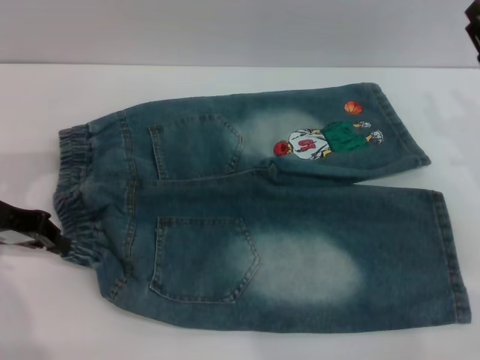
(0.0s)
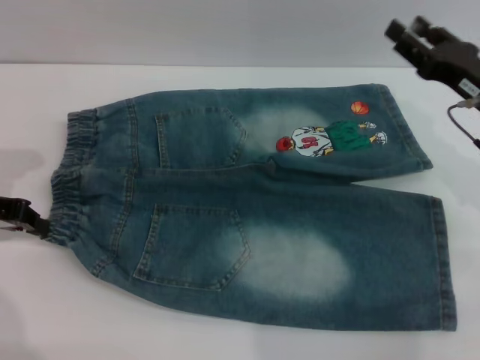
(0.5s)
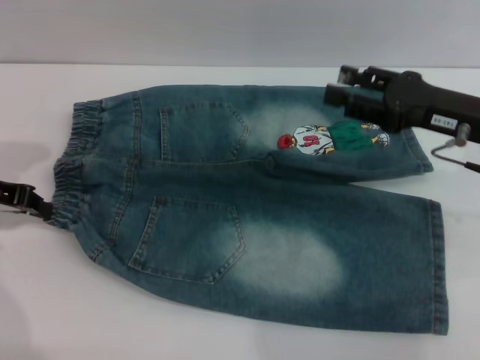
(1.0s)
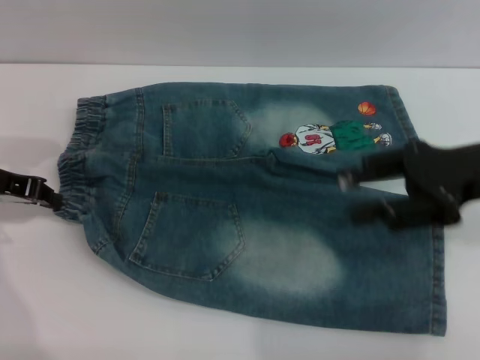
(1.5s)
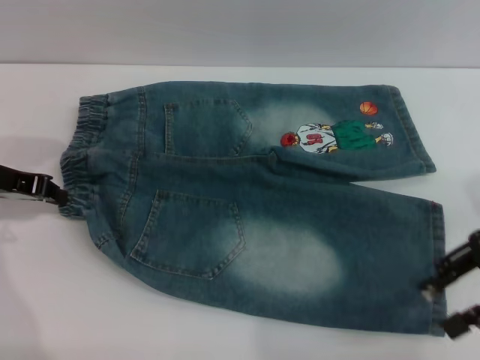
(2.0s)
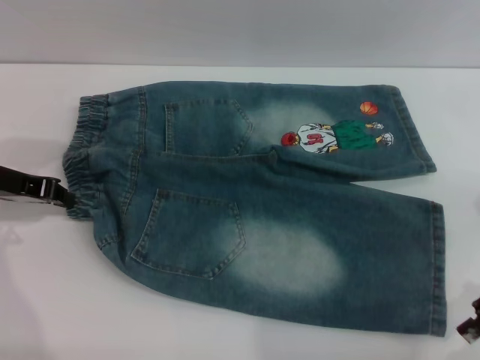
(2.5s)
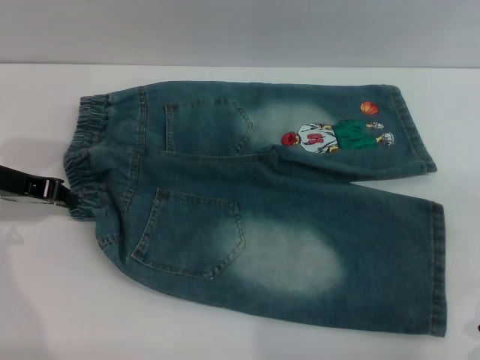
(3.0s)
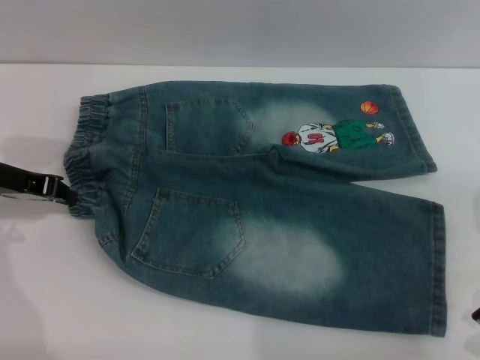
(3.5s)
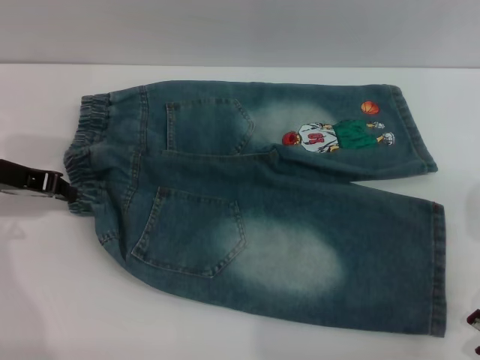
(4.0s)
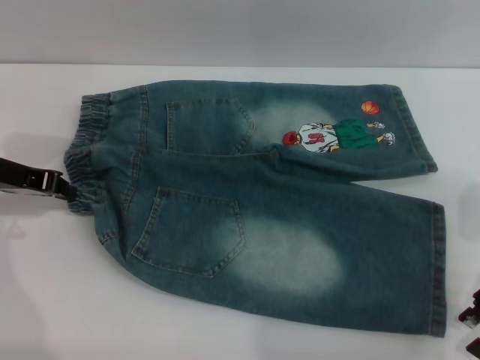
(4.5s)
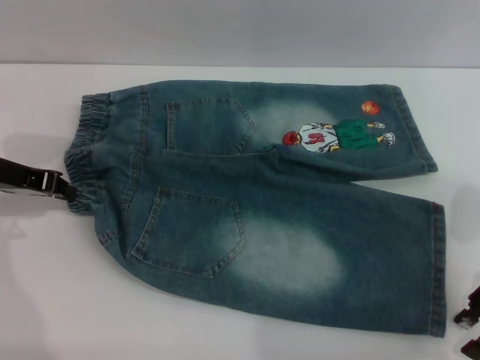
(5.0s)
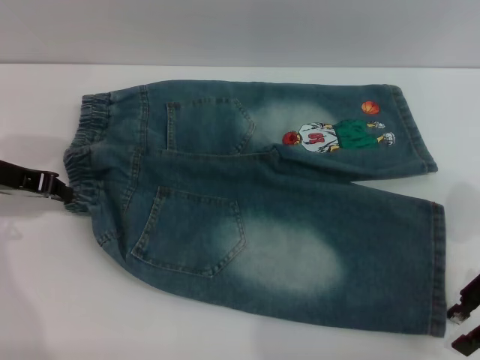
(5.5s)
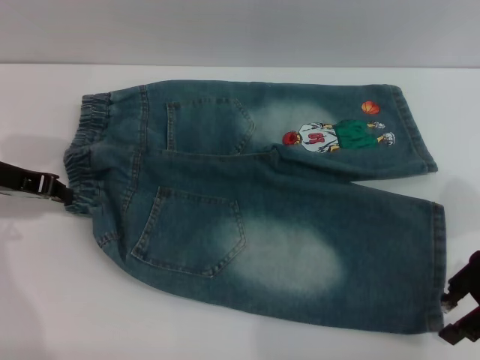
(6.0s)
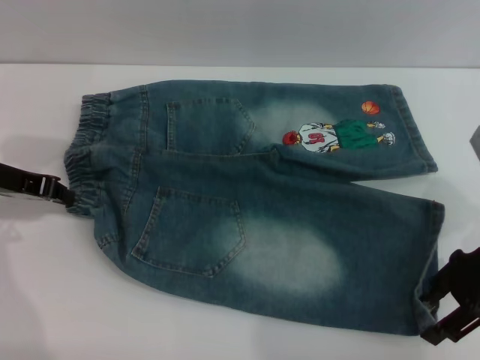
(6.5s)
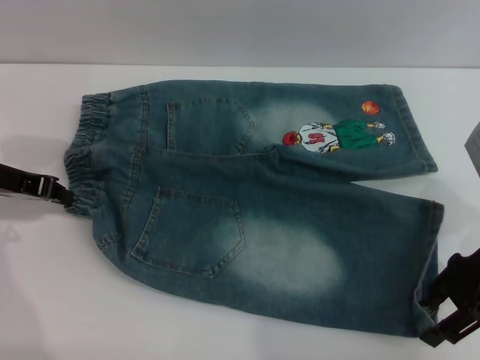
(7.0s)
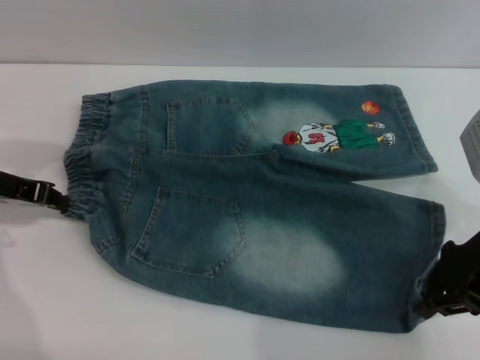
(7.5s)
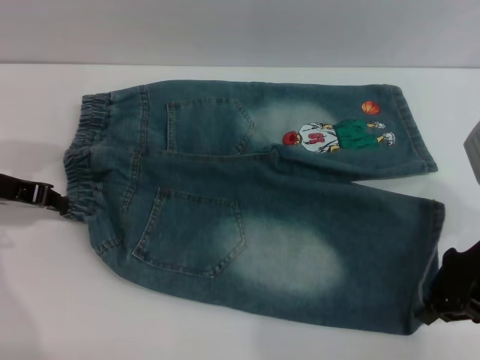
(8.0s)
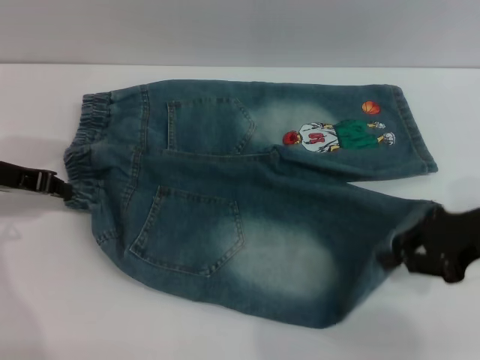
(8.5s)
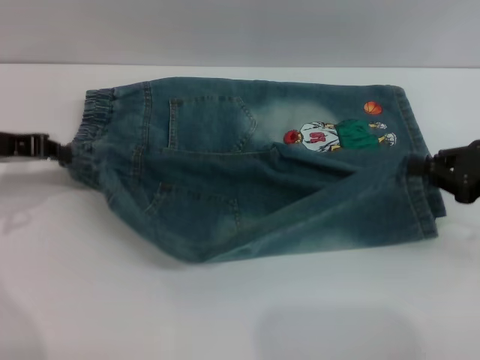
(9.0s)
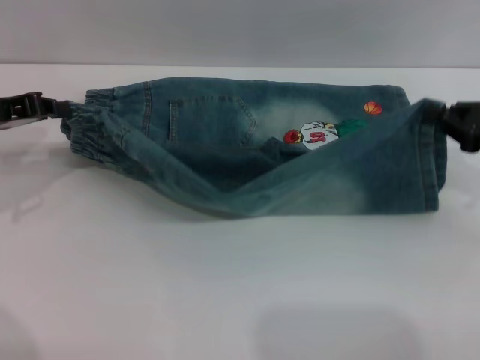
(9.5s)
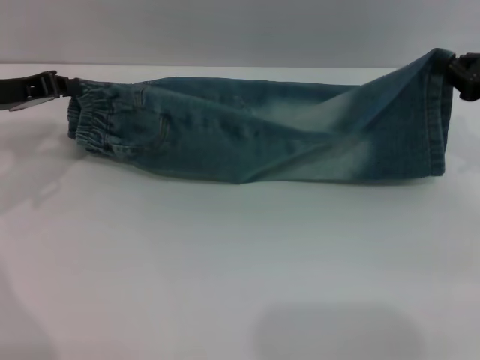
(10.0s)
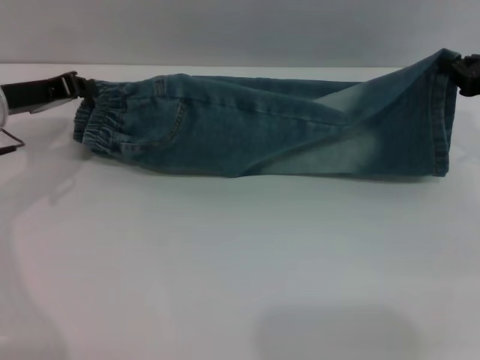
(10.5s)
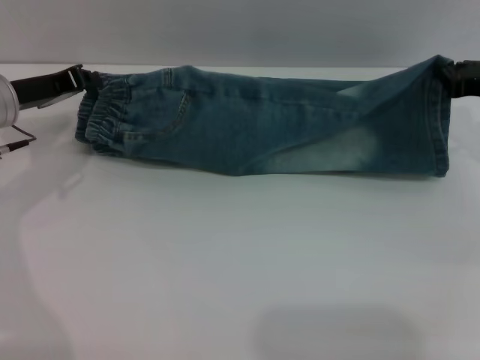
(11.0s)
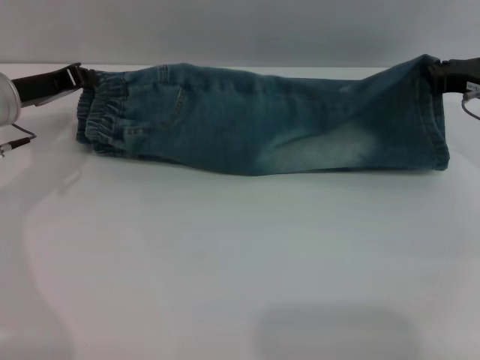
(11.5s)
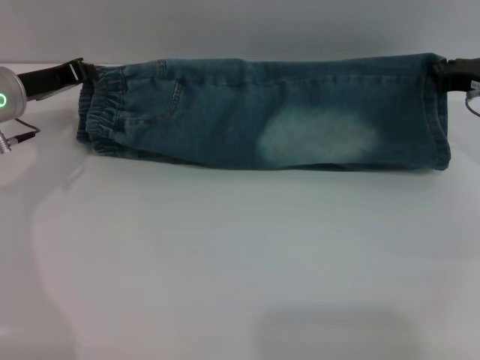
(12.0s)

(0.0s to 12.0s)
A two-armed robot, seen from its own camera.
0.0s - 2.0s: The right gripper travels upward by approximately 5 cm.
4.0s - 6.0s: The grippers make only small movements.
6.0s - 8.0s: The right gripper closes its fingers.
8.0s - 10.0s: The right gripper travels to the right and forward by some 10 cm.
10.0s - 12.0s: The left gripper moves roughly 5 cm. Meanwhile the right gripper shifts by some 5 cm.

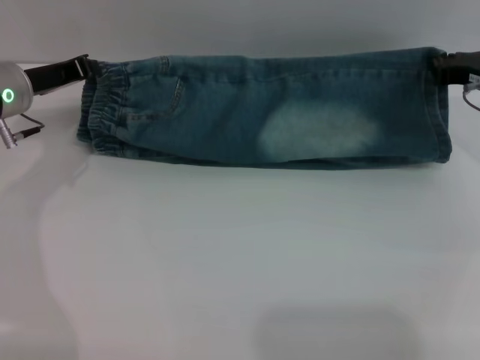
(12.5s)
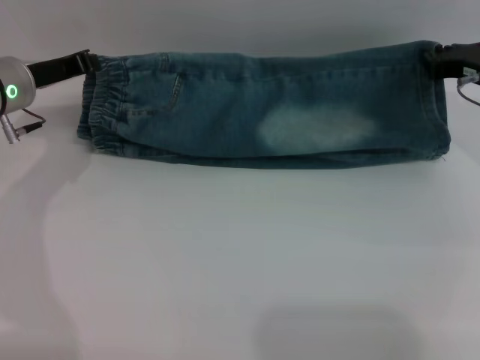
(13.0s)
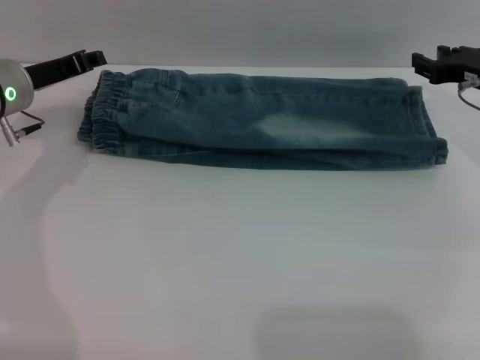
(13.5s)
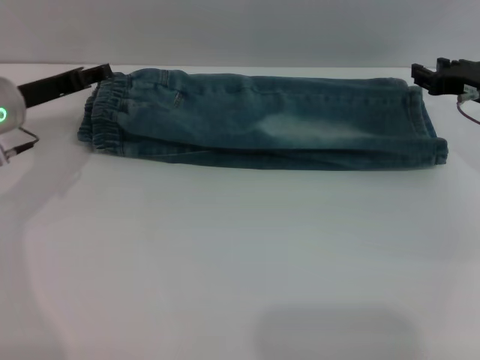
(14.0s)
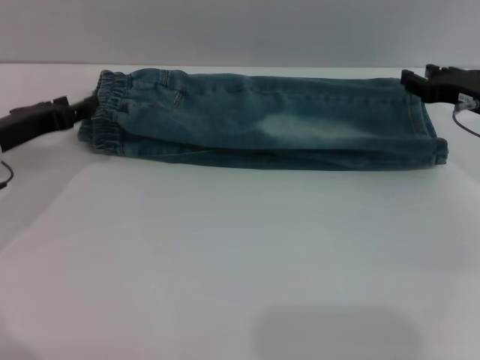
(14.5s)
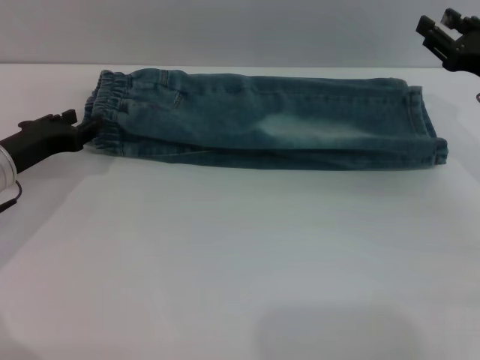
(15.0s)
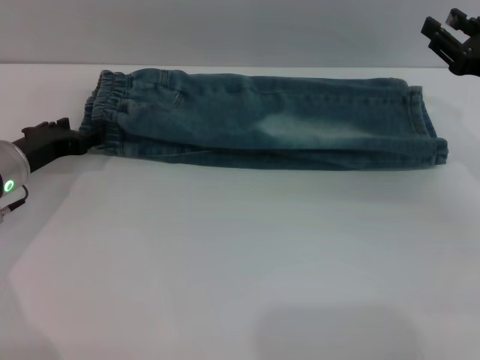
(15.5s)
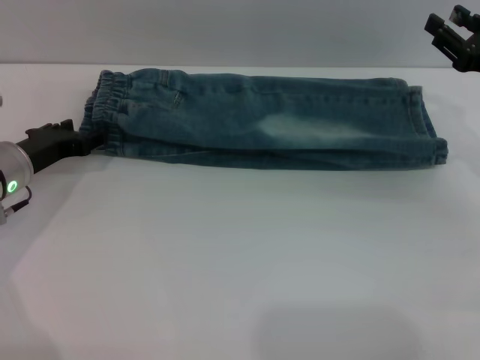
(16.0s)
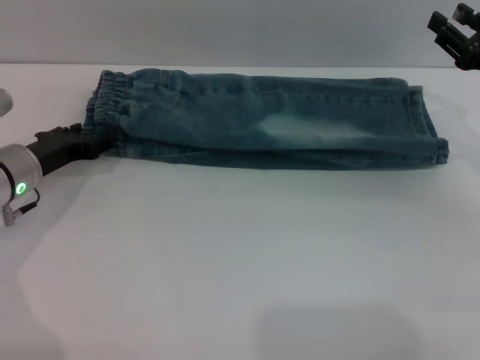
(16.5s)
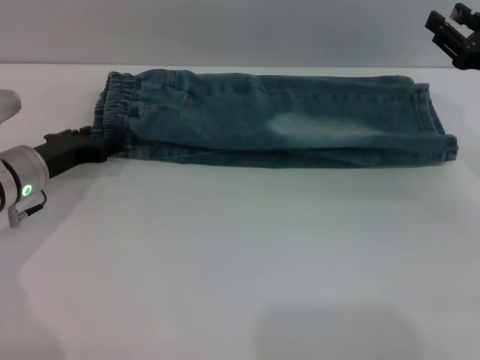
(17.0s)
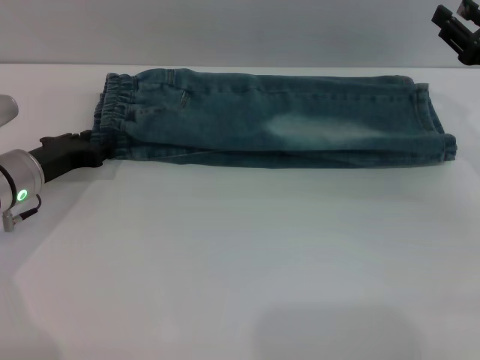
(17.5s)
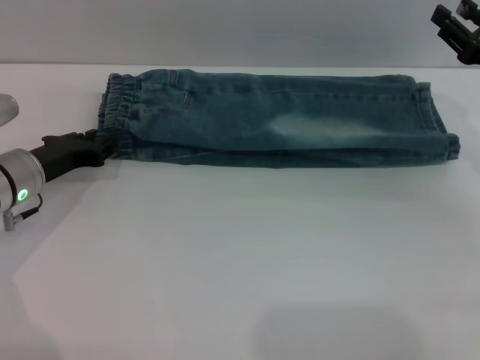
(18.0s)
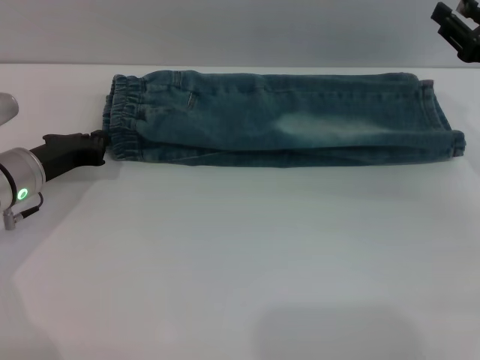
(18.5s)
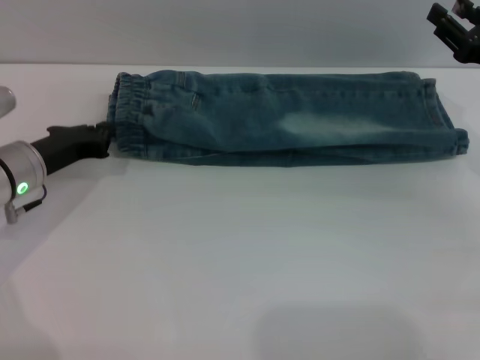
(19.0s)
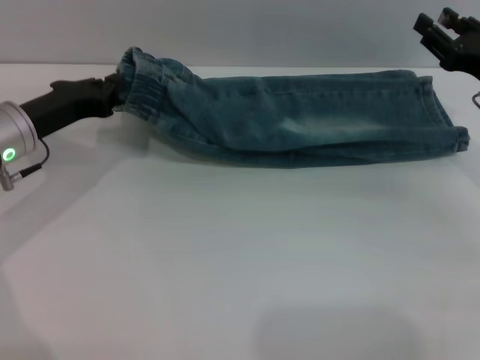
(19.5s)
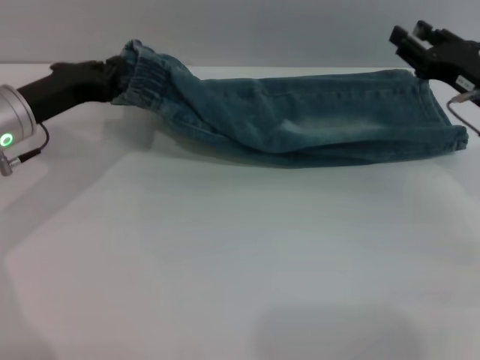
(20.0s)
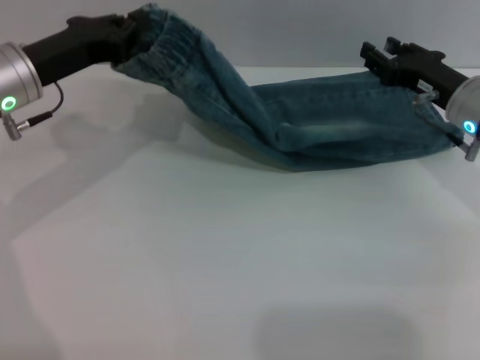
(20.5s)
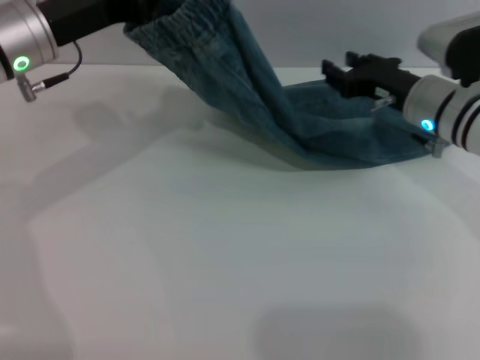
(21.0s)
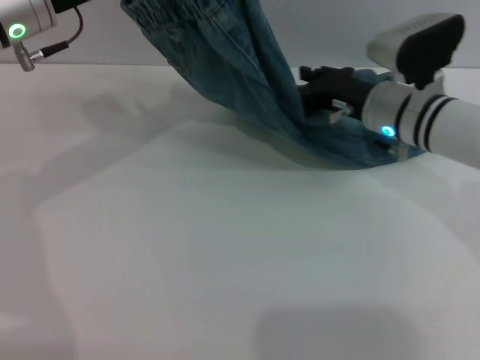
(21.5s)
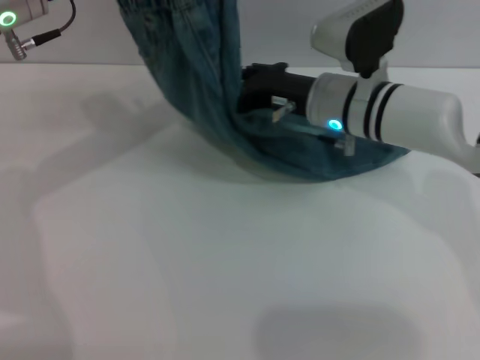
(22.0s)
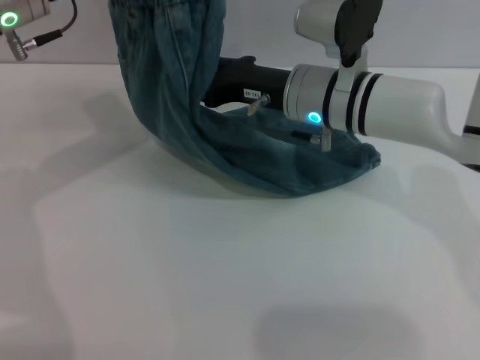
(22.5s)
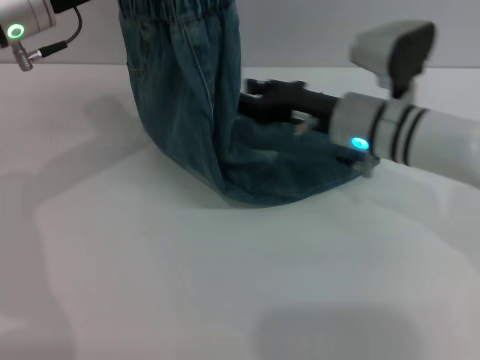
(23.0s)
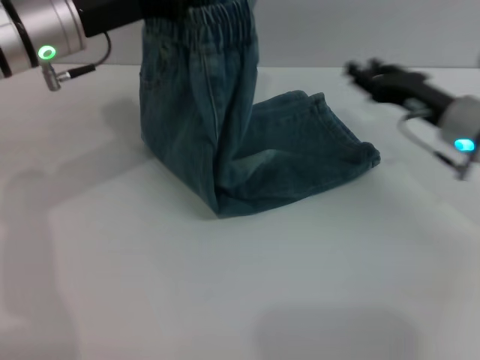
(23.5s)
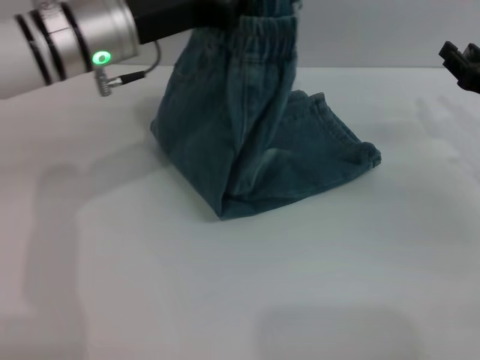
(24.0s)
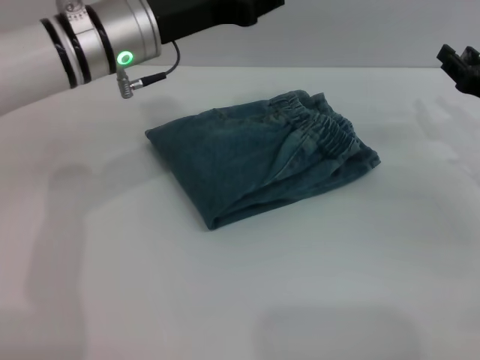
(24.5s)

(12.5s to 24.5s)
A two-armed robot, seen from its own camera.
Step, 12.5s - 14.5s: Fold the bottom of the pants upward with both grippers.
12.5s - 14.5s: The left gripper heads backward, covering approximately 5 cm, and opens. Meanwhile the right gripper opens its fingers.
14.5s - 16.5s: The left gripper changes place by some 5 cm.
16.5s - 18.5s: The left gripper closes.
18.5s - 20.5s: The left gripper goes some 10 cm upward. Meanwhile the right gripper moves to the left, about 5 cm.
20.5s - 22.5s: The right gripper travels to the left by about 15 cm; the left gripper is displaced upward by approximately 5 cm.
22.5s - 24.5s: The right gripper goes some 25 cm to the right, while the left gripper shifts some 10 cm to the right.

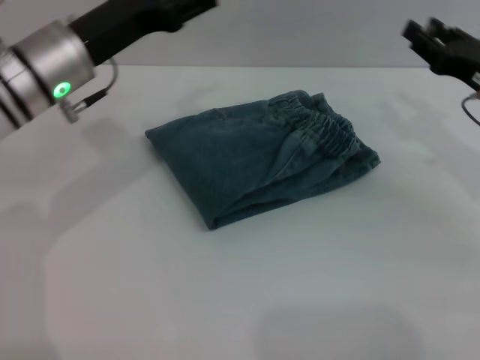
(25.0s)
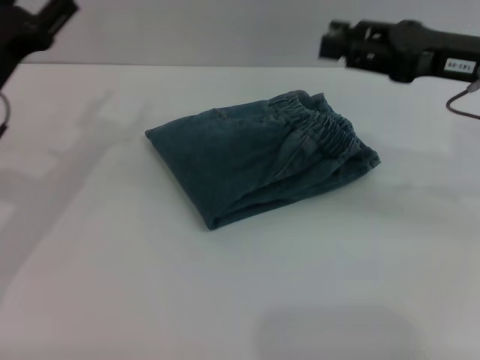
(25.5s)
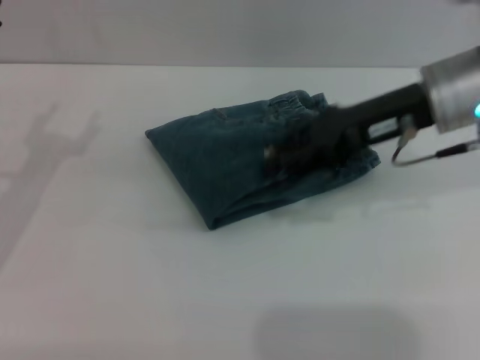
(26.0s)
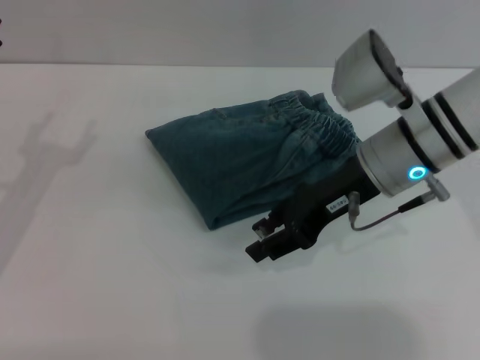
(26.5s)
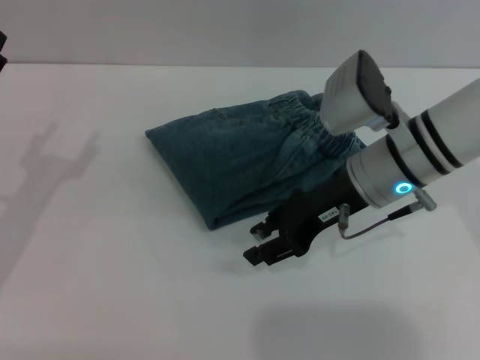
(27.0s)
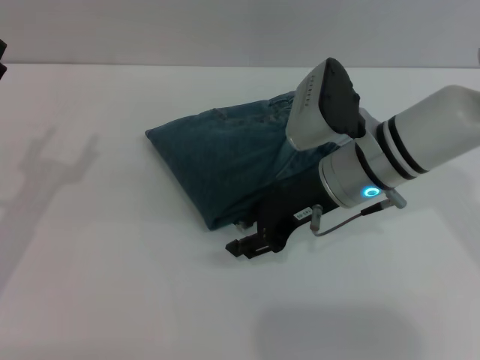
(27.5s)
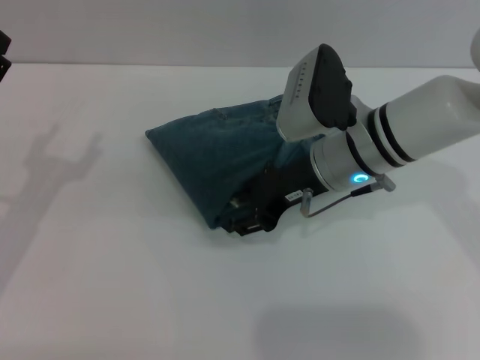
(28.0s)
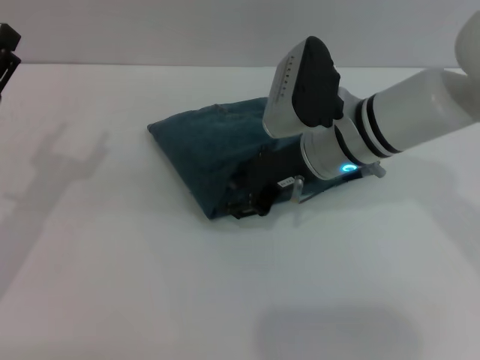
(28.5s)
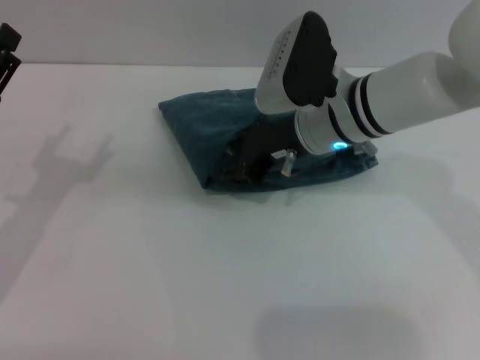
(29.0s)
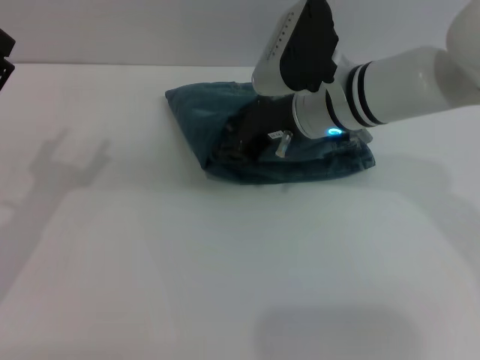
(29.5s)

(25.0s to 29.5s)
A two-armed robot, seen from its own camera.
25.0s - 27.0s: The left gripper shifts about 15 cm to the left, backward and downward. Meanwhile the right gripper travels to the left by roughly 15 cm.
27.0s - 29.5s: The right gripper ends up roughly 5 cm from where it was.
